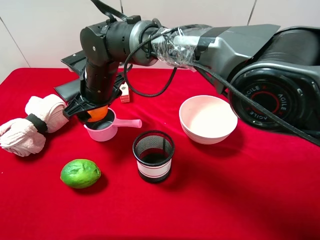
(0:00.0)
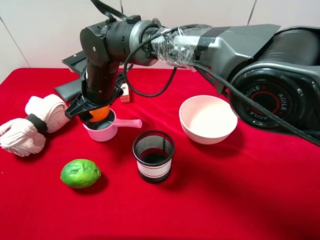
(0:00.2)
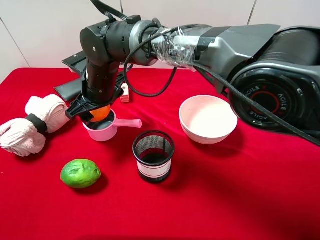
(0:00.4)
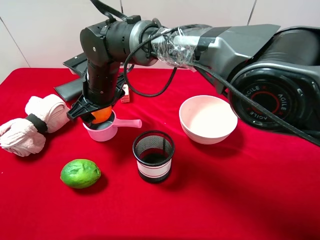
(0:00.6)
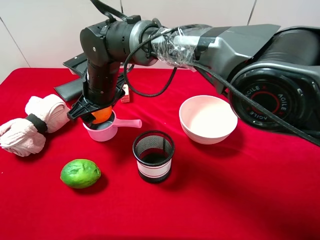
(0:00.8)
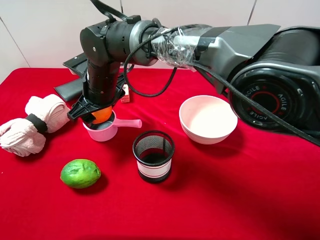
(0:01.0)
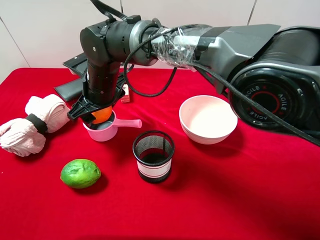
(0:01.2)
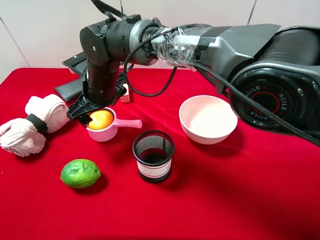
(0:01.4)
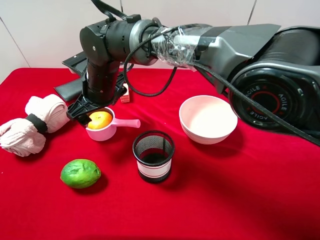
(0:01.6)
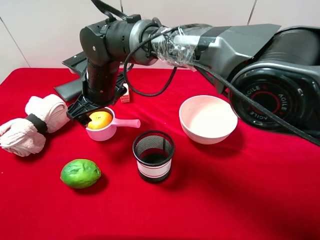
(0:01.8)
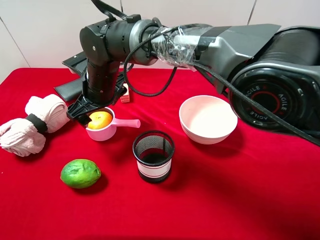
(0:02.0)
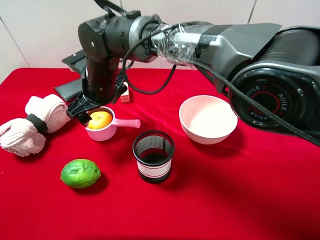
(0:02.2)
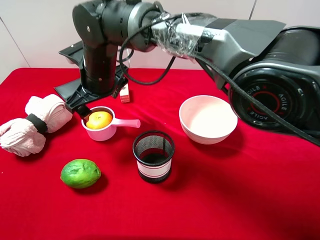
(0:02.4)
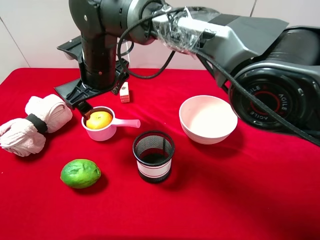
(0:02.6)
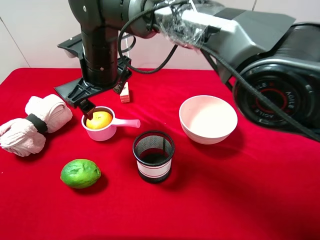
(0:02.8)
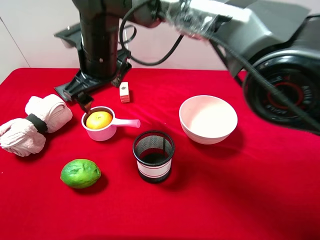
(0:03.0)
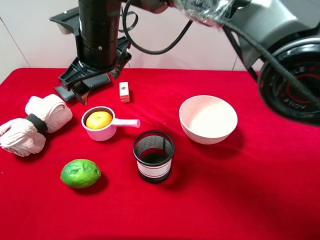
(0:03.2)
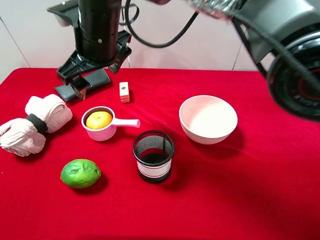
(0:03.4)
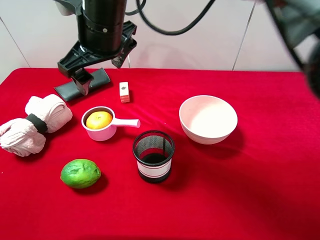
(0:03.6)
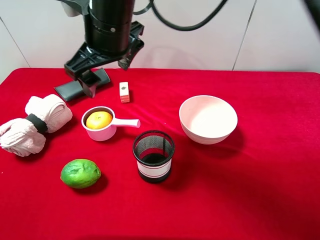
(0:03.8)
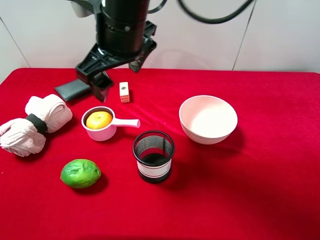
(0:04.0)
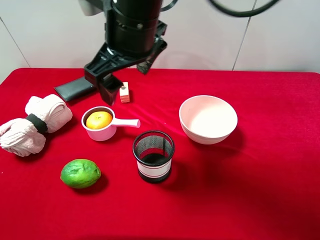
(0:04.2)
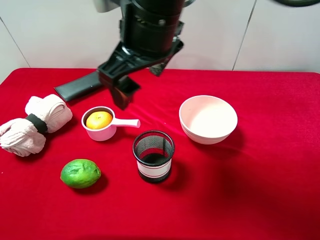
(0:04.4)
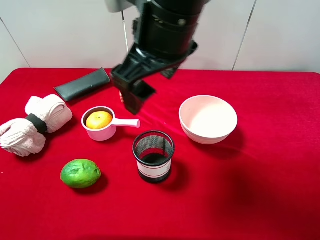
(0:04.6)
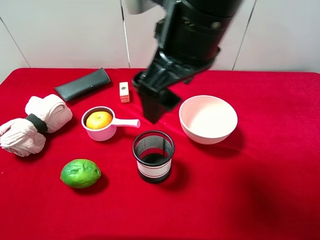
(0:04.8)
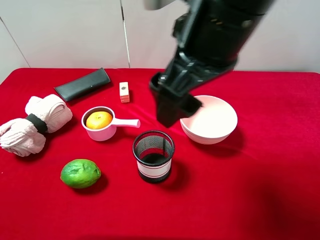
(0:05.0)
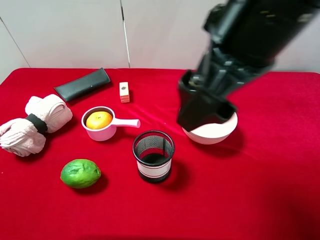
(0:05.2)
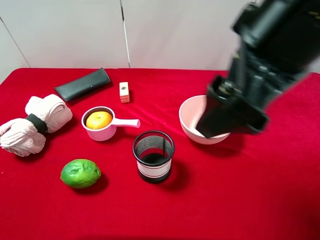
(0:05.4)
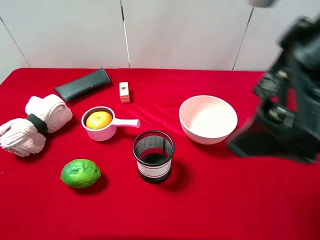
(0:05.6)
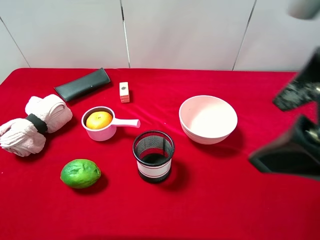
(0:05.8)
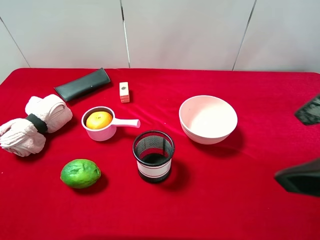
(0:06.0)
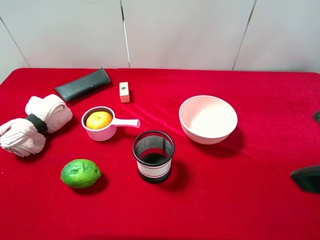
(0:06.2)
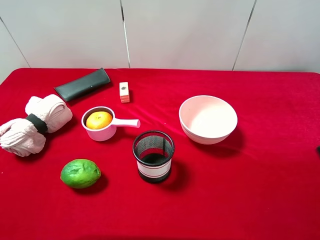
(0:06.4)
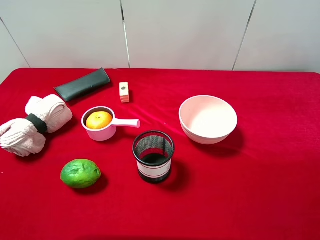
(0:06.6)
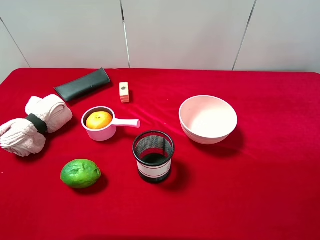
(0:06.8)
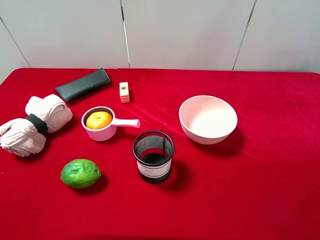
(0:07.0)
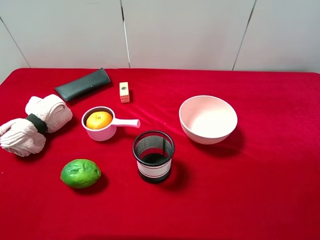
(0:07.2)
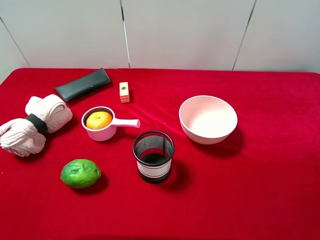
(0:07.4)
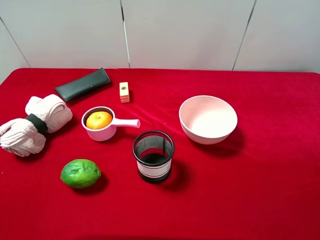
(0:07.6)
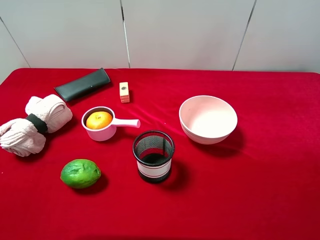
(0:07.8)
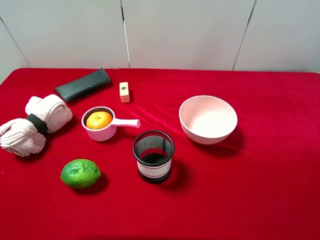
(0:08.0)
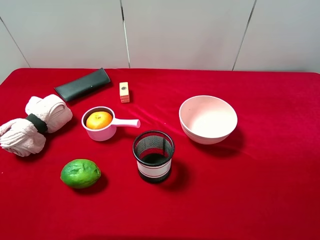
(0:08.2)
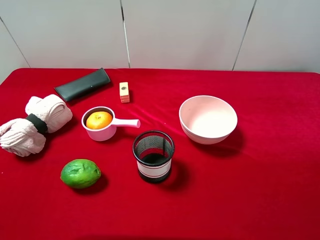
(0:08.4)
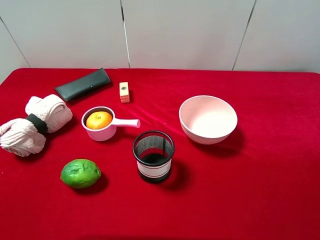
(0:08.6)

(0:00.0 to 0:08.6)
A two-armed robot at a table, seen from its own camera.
Task of the whole recording: pick up an item with a gripper and place it in a random container on the desktop.
0:00.0 - 0:01.4: The right gripper opens up.
0:01.4 - 0:02.8: The right gripper moves upward, some 5 cm.
0:02.8 - 0:04.4: The right gripper shifts some 15 cm upward, to the right and backward.
0:04.4 - 0:05.8: The right gripper goes roughly 20 cm to the right and backward.
0:05.8 - 0:07.2: The right gripper moves to the right, backward and downward, roughly 20 cm.
